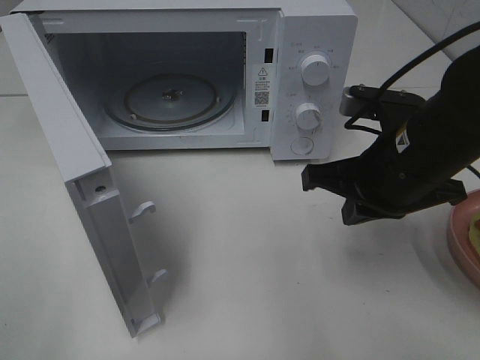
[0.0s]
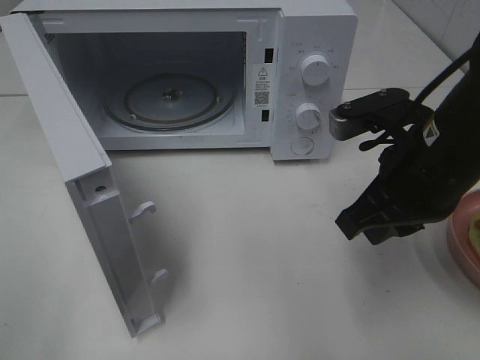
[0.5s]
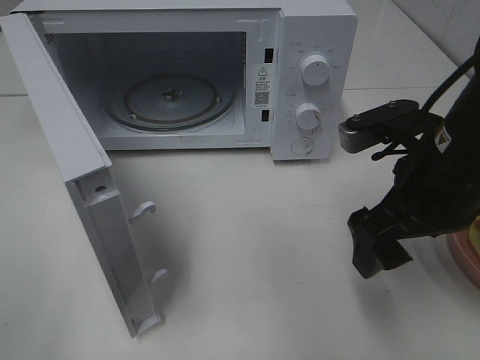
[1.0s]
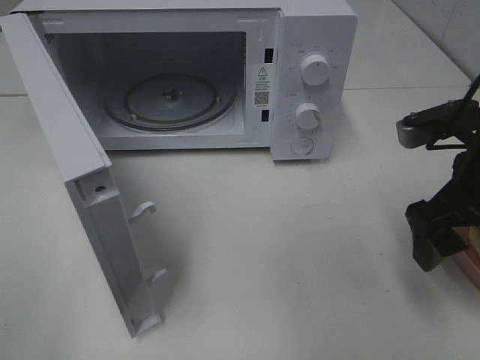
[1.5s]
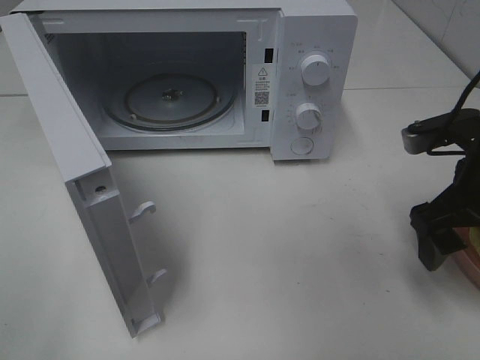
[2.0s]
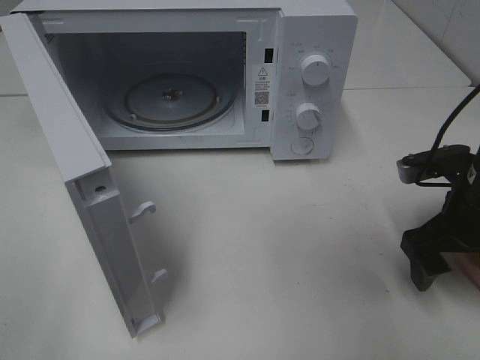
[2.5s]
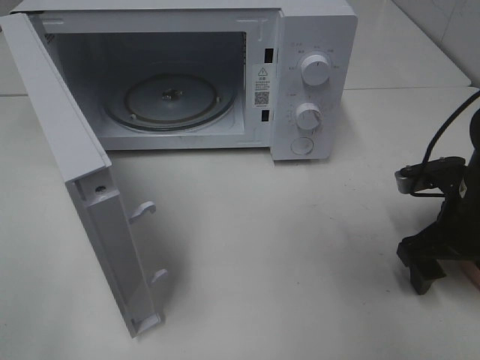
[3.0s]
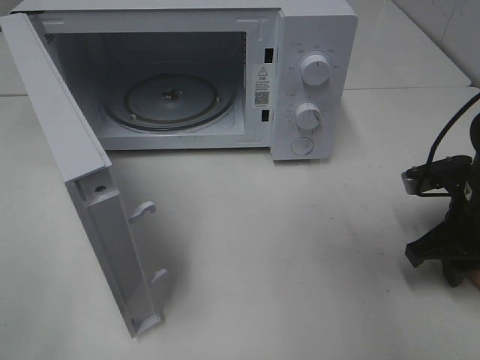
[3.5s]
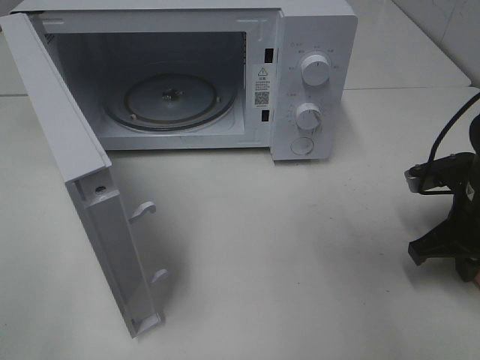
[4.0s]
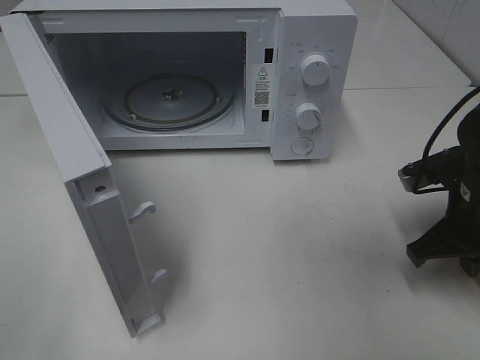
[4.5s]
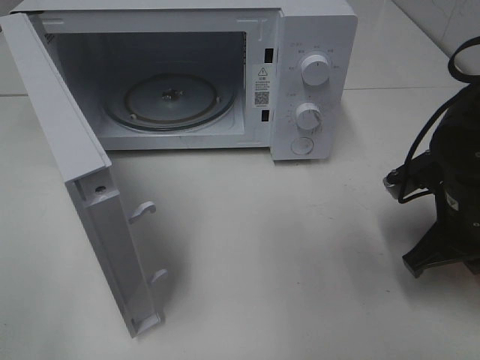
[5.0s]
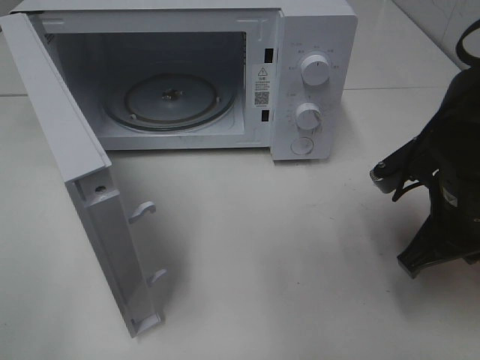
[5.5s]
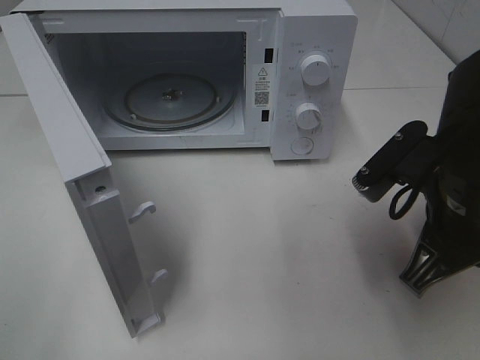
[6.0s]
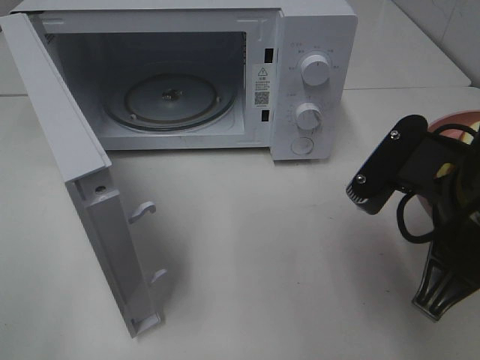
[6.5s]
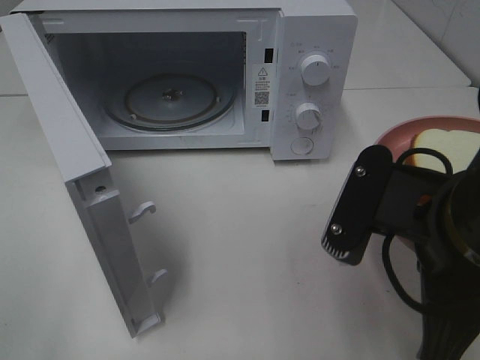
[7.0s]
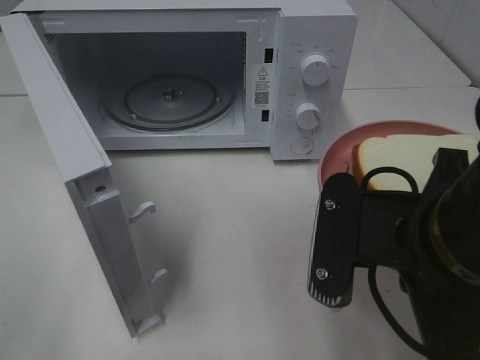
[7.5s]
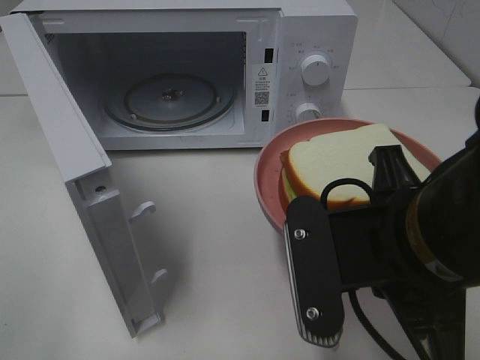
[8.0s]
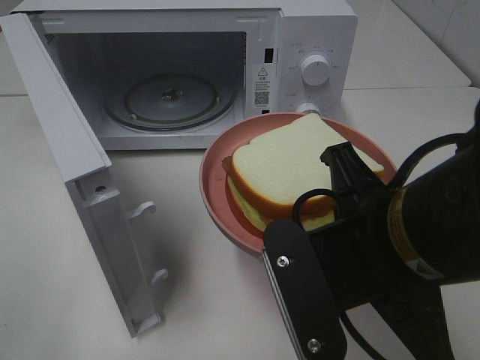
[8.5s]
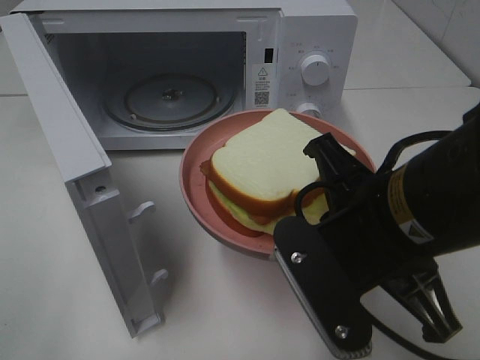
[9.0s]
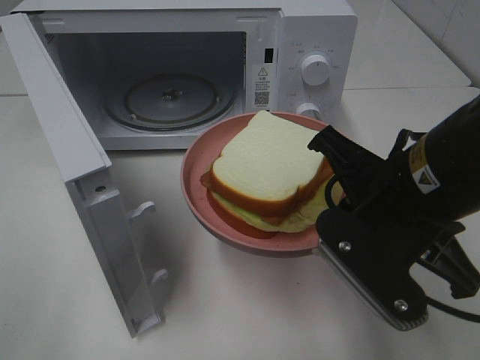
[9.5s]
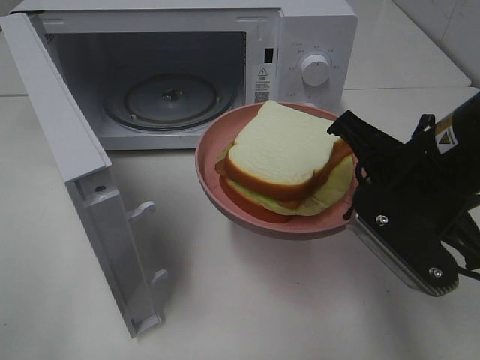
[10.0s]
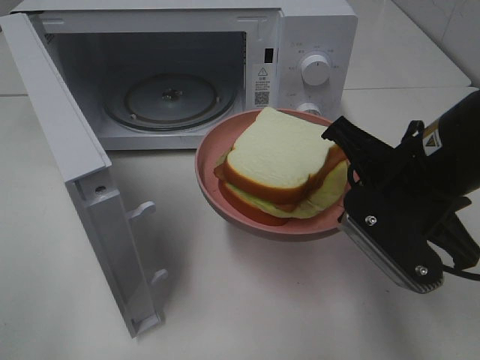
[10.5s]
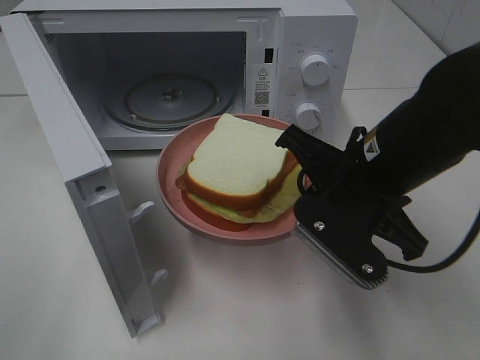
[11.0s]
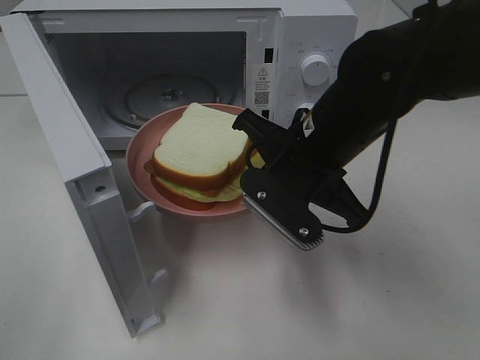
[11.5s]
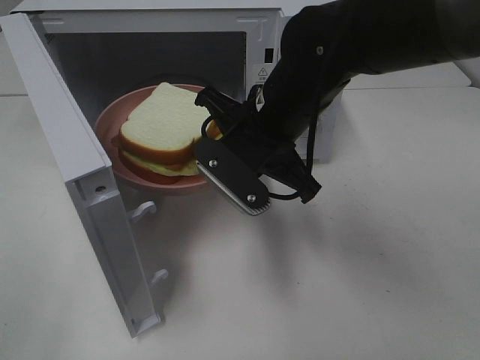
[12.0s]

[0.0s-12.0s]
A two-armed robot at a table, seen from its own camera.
Task of the whole recording: Heat Sandwich.
Step, 0.0s to 4.0s: Right hand: grab the plate with the sandwich.
0.0s to 2.0s: The right gripper moves to the right, about 10 cm, and opens up.
2.0s to 4.0s: The right gripper shifts approximately 5 cm downward, and closes up.
4.0s to 6.0s: The right gripper heads to the left, upward and backward, covering roughly 15 cm.
6.0s to 8.0s: The right gripper goes about 10 cm backward and to the left.
8.0s to 10.0s: The right gripper goes about 10 cm forward.
10.0s to 12.0s: The right gripper travels to the left and forward by some 15 cm.

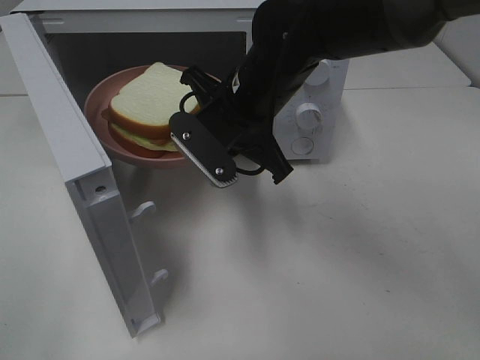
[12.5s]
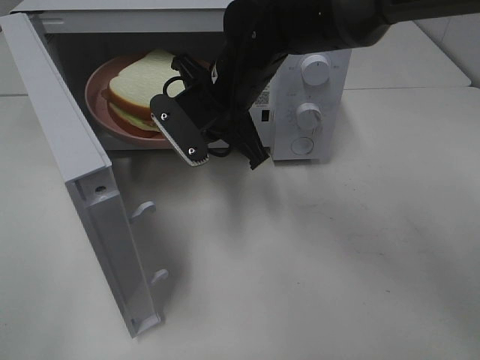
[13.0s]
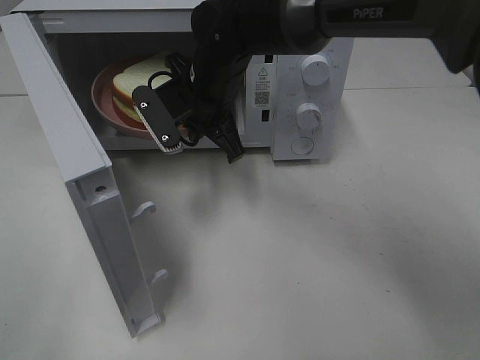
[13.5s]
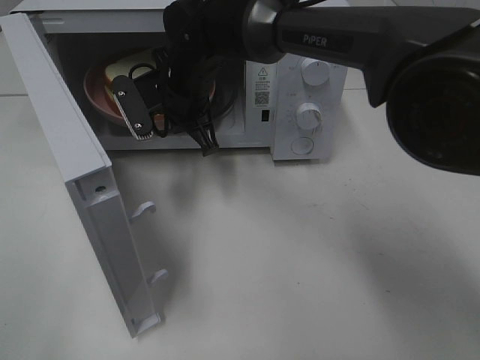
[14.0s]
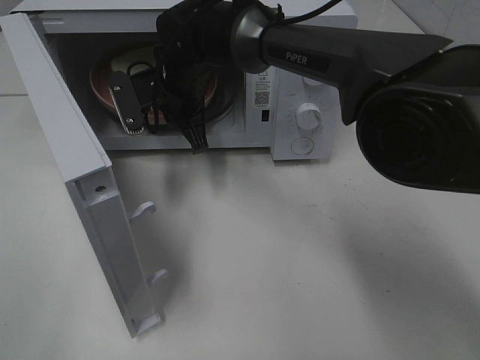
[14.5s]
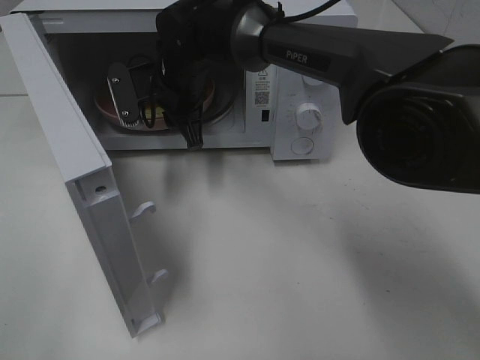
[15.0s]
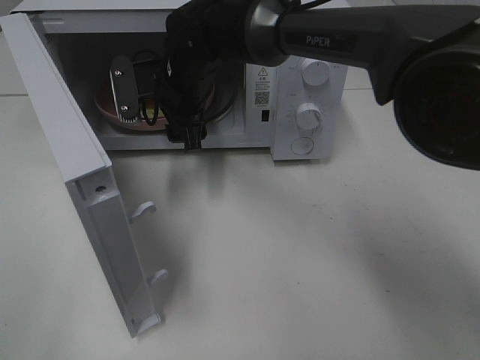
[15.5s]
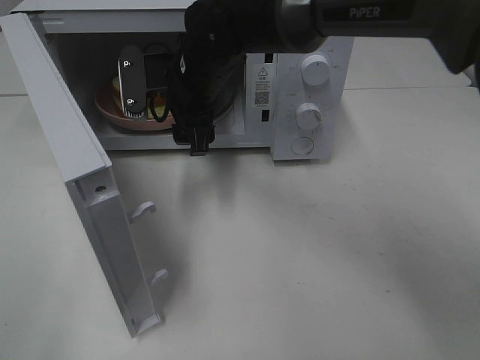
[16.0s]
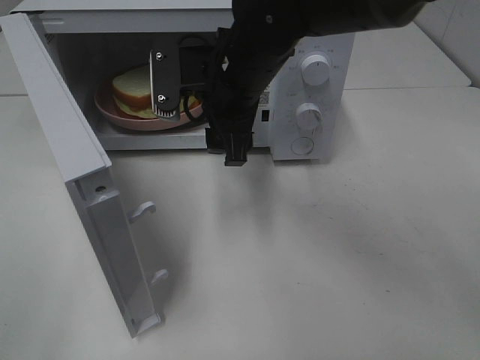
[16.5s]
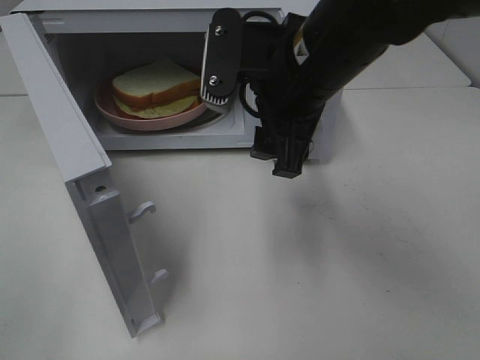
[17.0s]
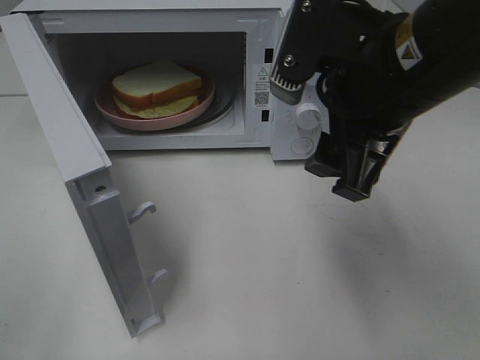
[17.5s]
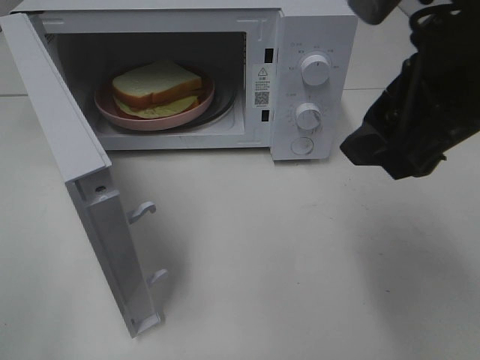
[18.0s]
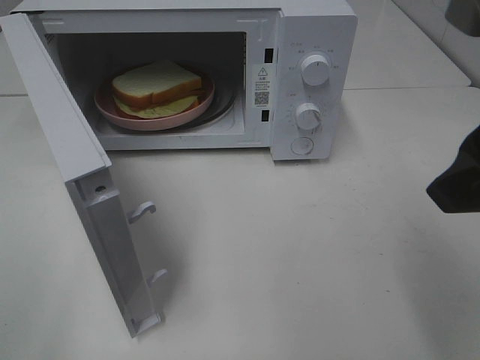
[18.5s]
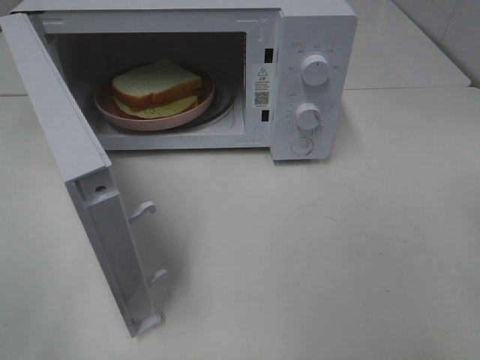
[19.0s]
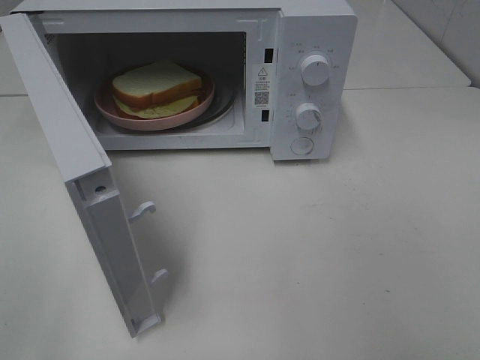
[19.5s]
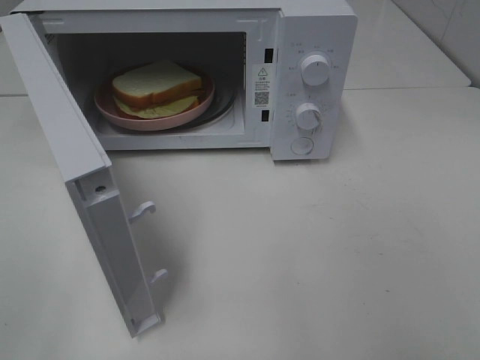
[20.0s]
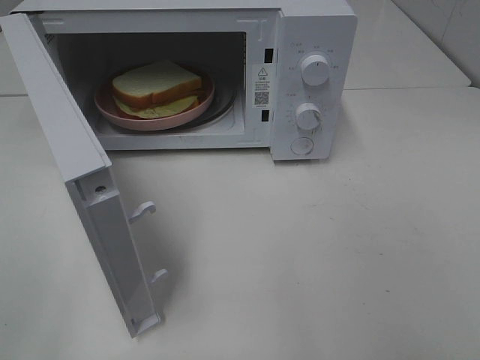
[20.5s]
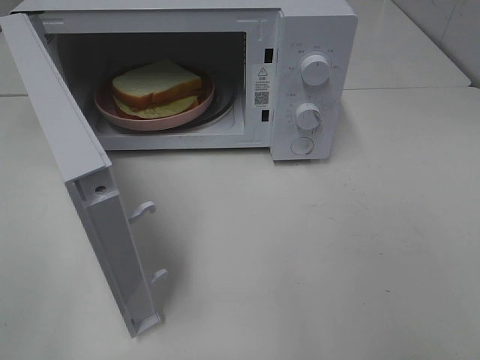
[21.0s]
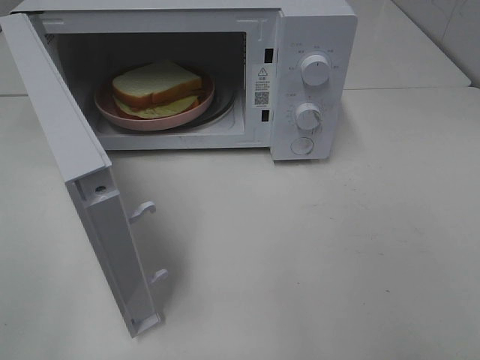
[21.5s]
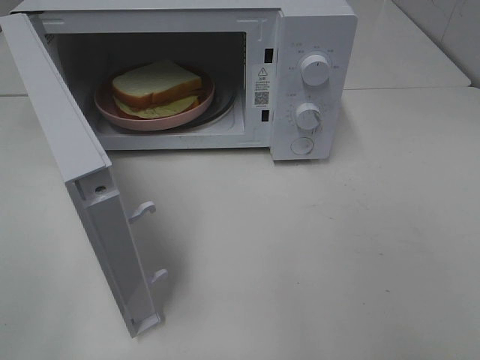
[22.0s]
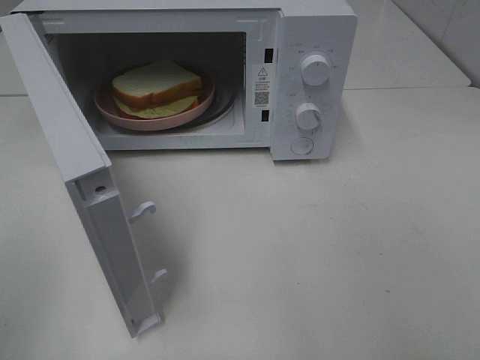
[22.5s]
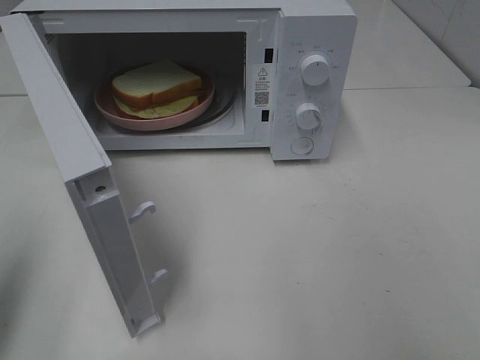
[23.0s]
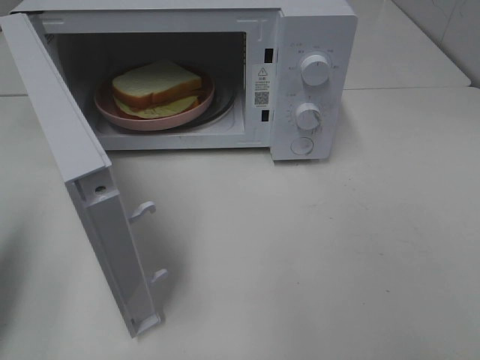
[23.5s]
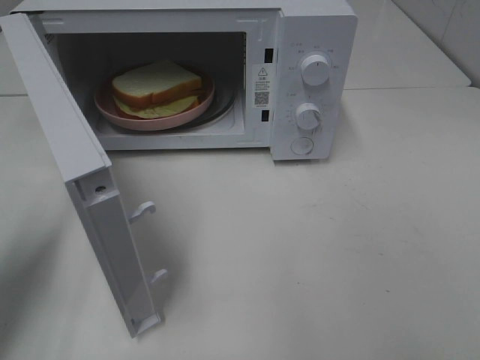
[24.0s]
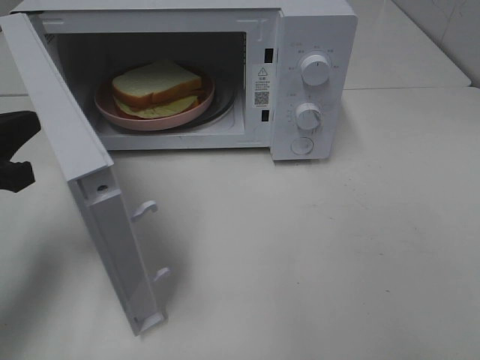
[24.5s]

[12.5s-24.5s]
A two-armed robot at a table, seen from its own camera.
Task of the whole recording: Heat Sandwich.
Step, 12.5s to 16.0s: Right hand: place the plate in the microwave.
12.5s to 14.5s: The right gripper goes about 15 cm forward and to the left.
14.5s to 16.5s: The right gripper goes about 15 cm backward, to the right and upward, and opens its fingers.
16.5s to 18.5s: The right gripper heads backward, to the right and upward, covering approximately 30 cm.
18.5s to 20.5s: The right gripper travels backward and to the right by approximately 20 cm.
22.5s to 24.5s: The left gripper is displaced forward and downward by about 20 cm, and closes its fingers.

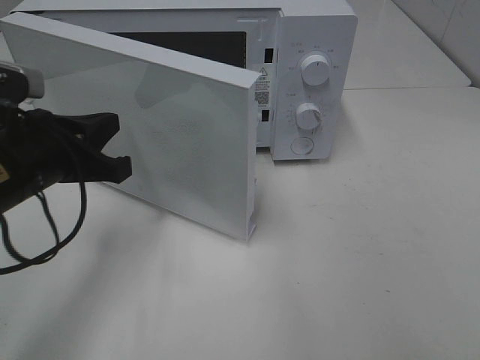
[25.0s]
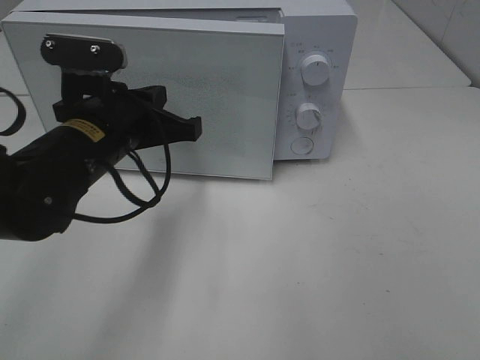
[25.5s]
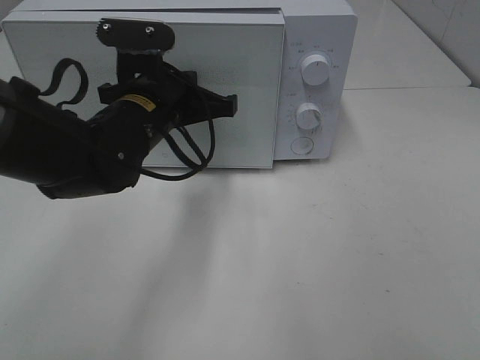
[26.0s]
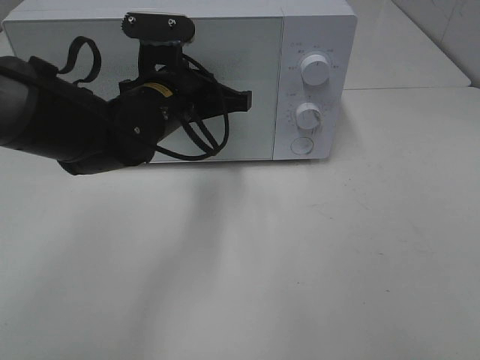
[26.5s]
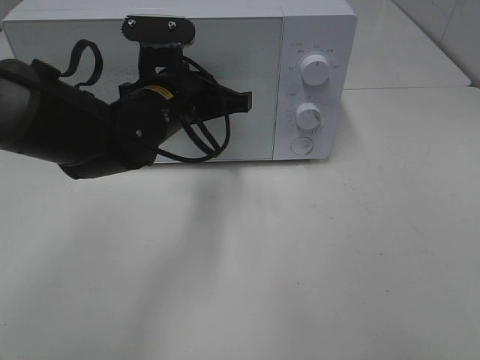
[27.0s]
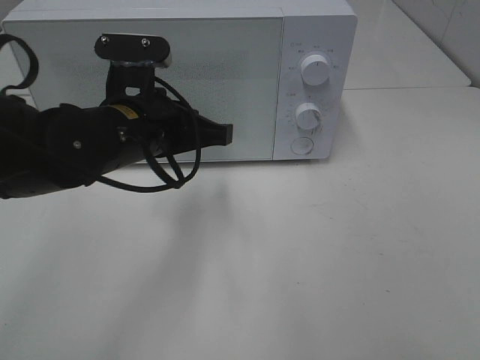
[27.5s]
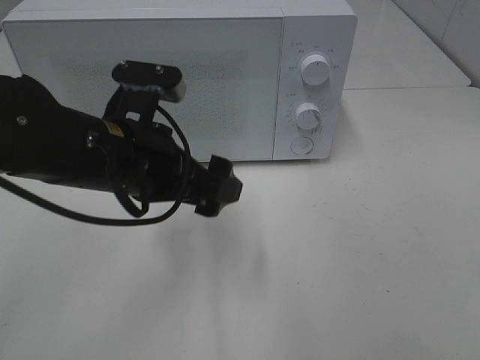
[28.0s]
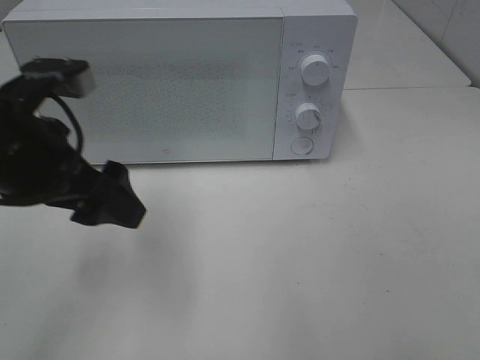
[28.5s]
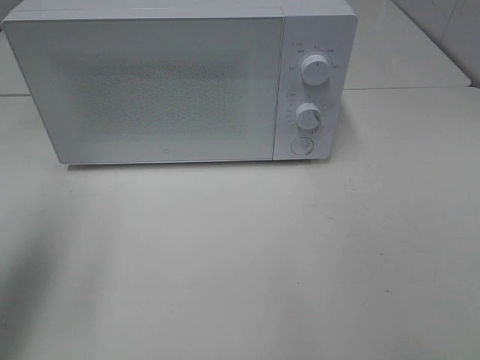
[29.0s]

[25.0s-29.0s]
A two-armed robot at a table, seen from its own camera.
Task of the whole recording: Heat Sandwich.
Step, 25.0s to 27.5s: Left hand: close the microwave door.
25.0s to 27.0s: The left gripper moves to the right and forward, approximately 15 cm.
27.0s to 29.0s: The left gripper goes some 30 cm to the left, backward and upward, and opens up.
